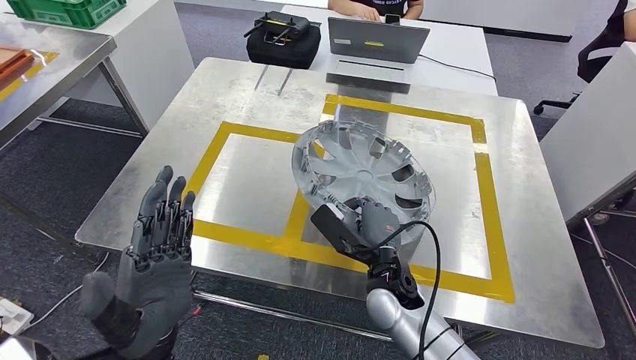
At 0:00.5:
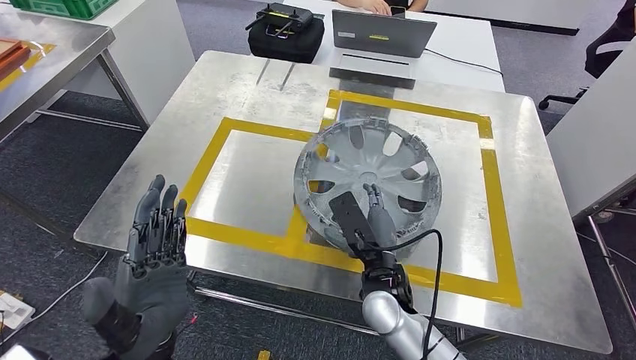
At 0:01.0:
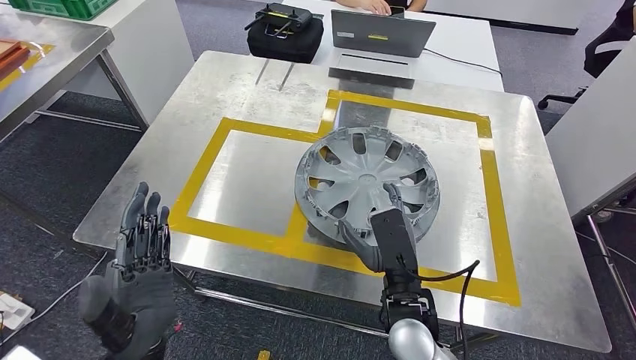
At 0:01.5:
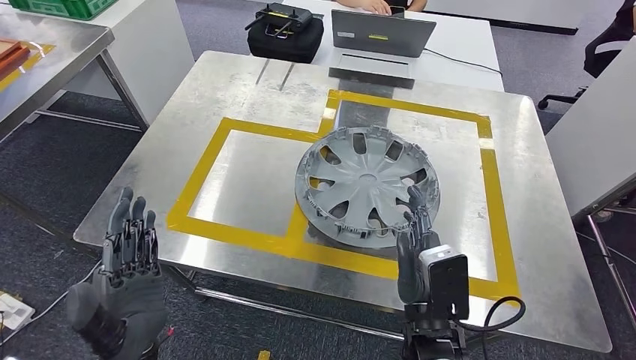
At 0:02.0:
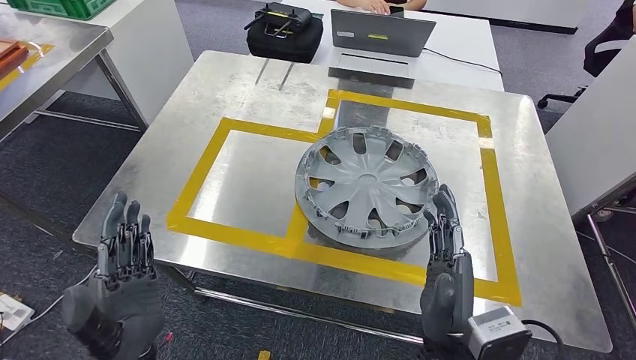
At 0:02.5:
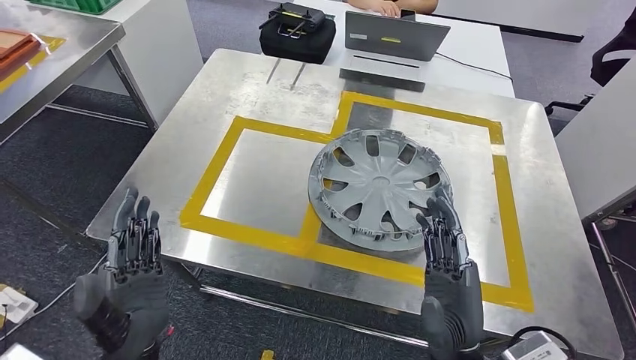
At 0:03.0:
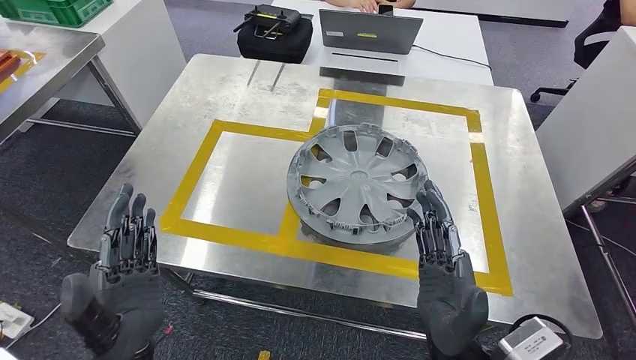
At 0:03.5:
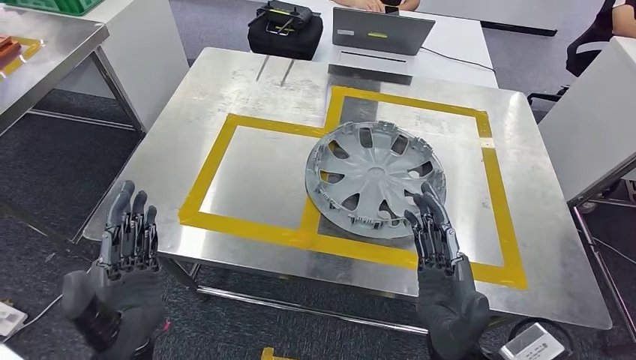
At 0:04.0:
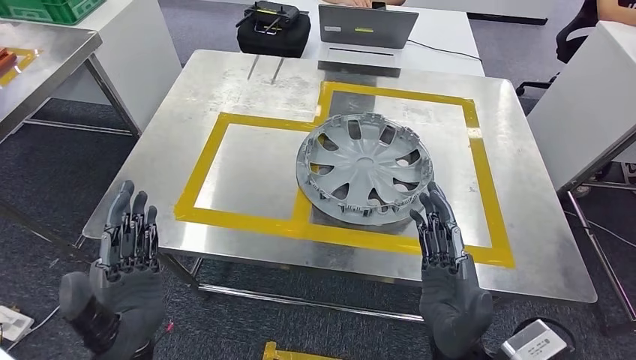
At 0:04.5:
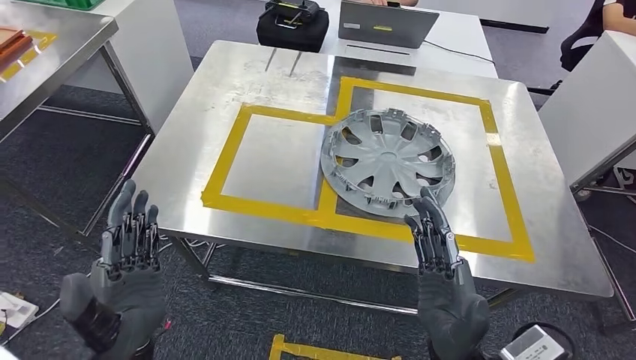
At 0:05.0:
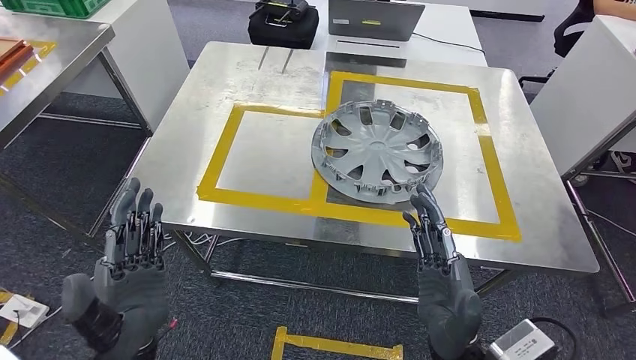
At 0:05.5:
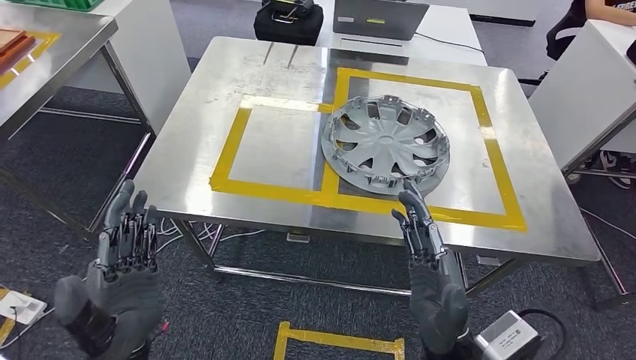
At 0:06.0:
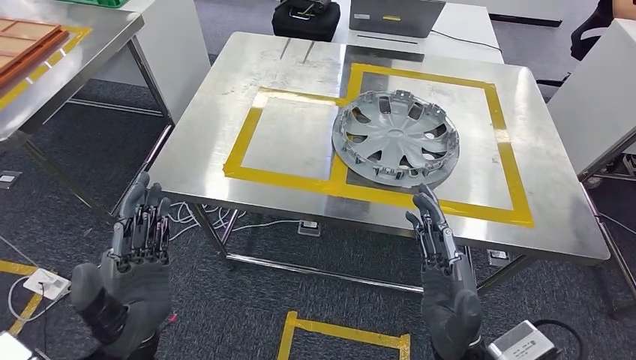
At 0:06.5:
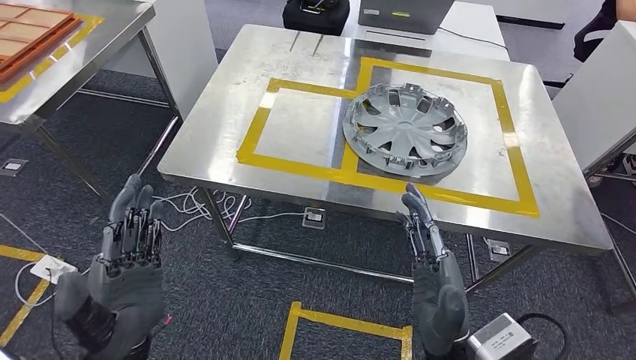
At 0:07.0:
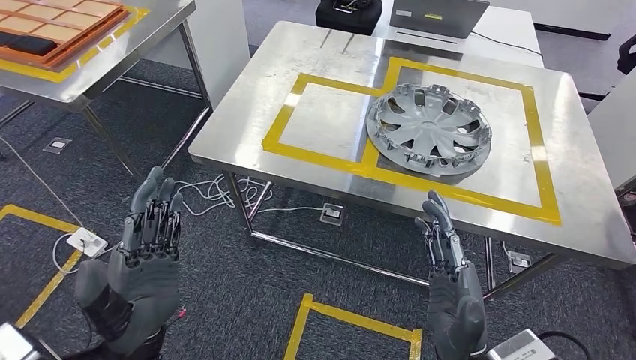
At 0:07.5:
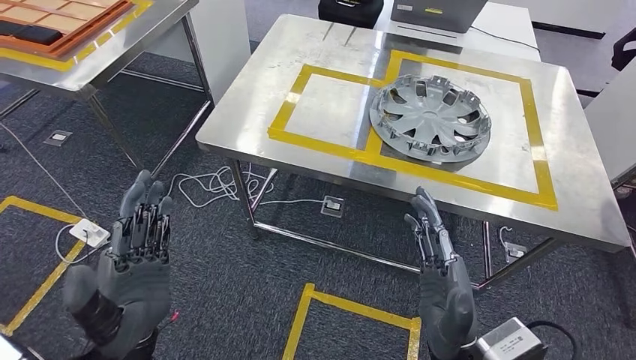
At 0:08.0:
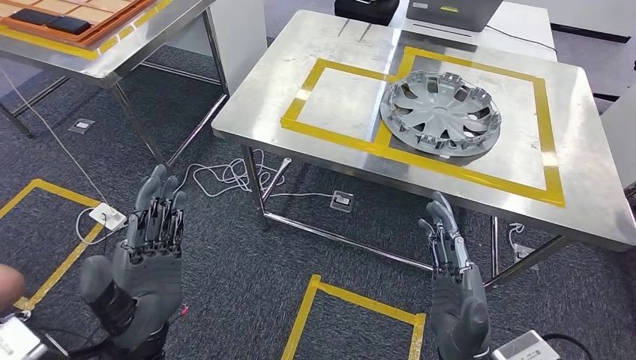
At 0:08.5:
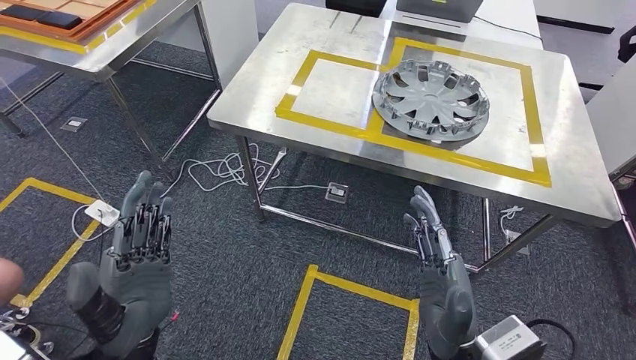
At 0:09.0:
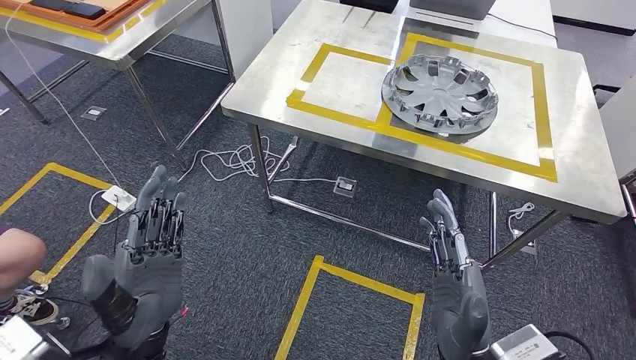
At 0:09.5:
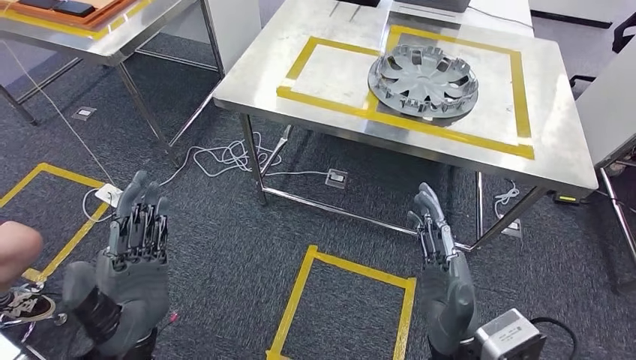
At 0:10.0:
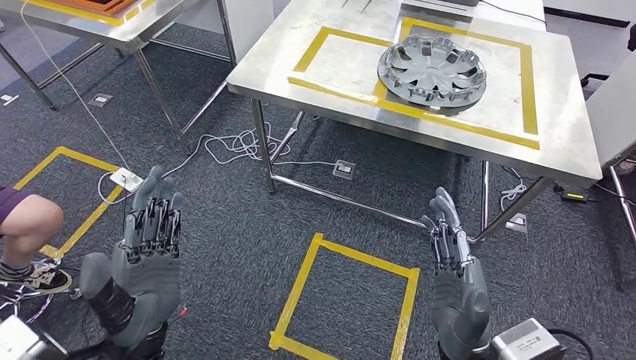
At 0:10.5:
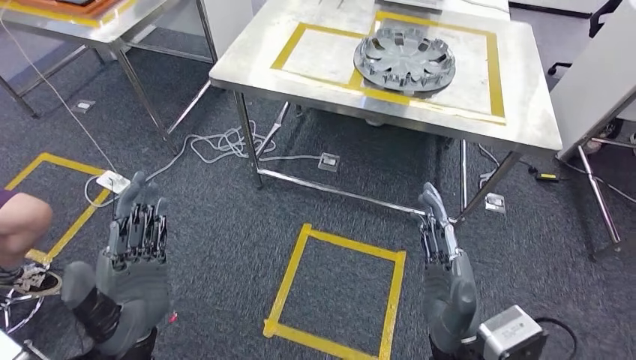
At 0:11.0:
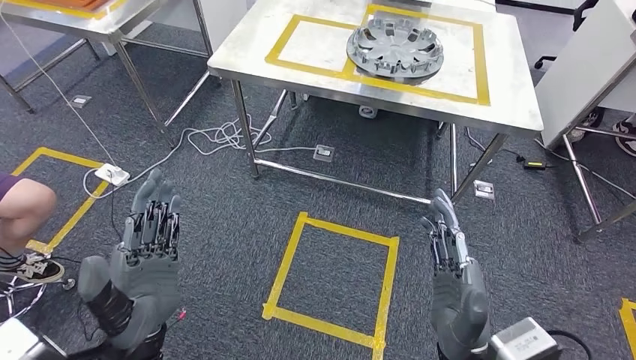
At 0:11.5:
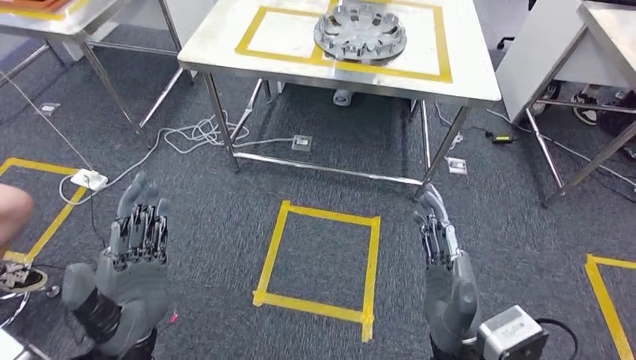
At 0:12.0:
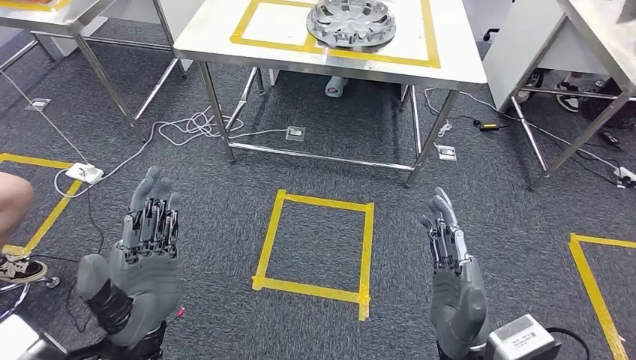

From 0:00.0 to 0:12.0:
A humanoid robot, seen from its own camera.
Step, from 0:00.0 to 0:02.5: Insert the small component into the corresponding slot on the workbench.

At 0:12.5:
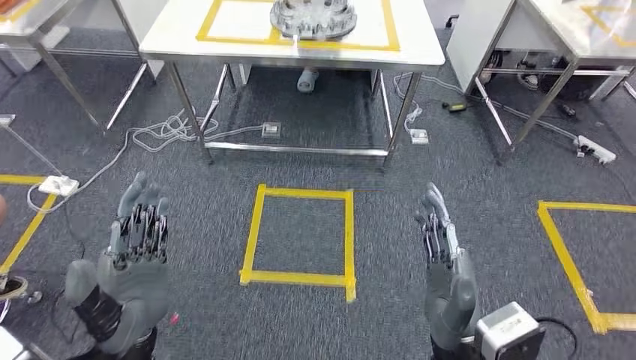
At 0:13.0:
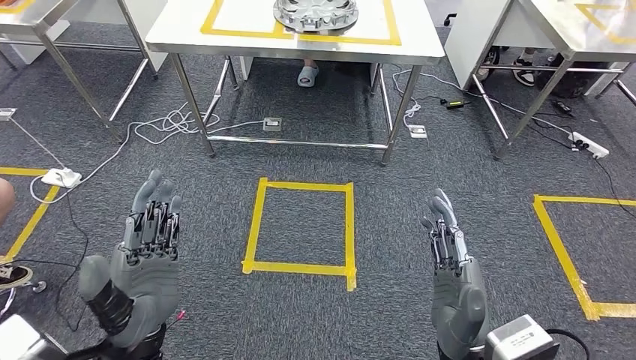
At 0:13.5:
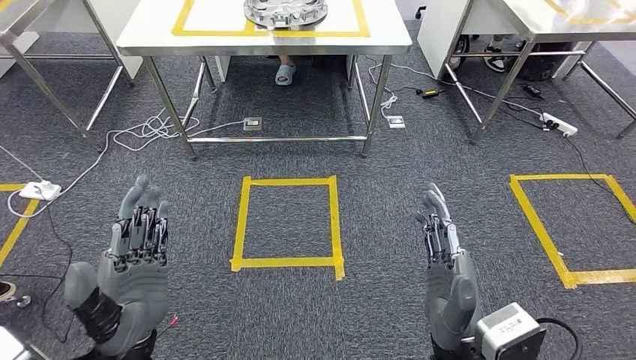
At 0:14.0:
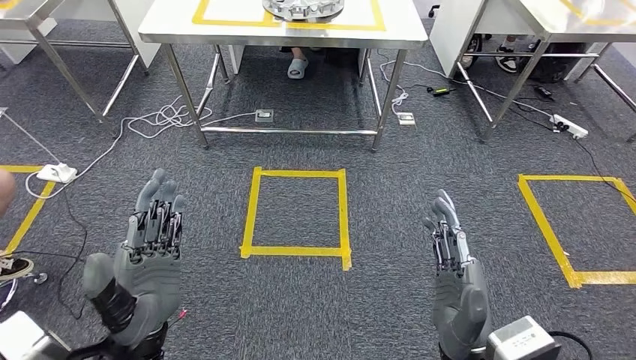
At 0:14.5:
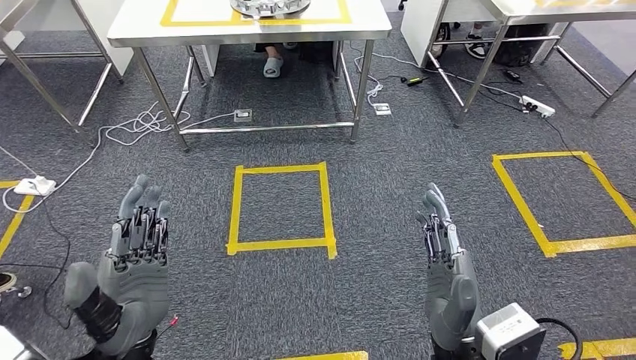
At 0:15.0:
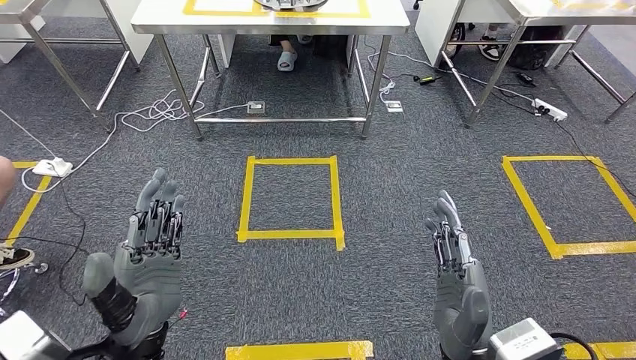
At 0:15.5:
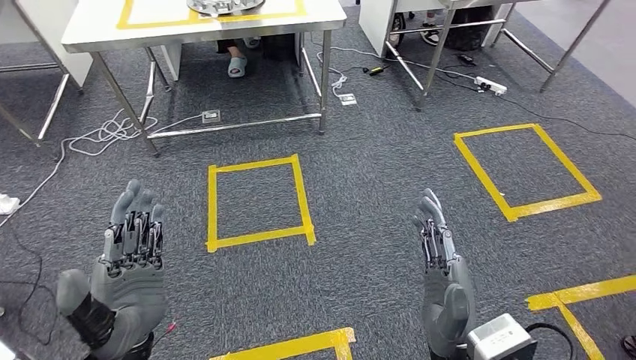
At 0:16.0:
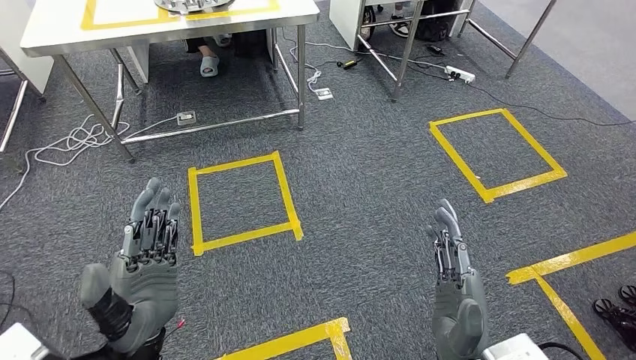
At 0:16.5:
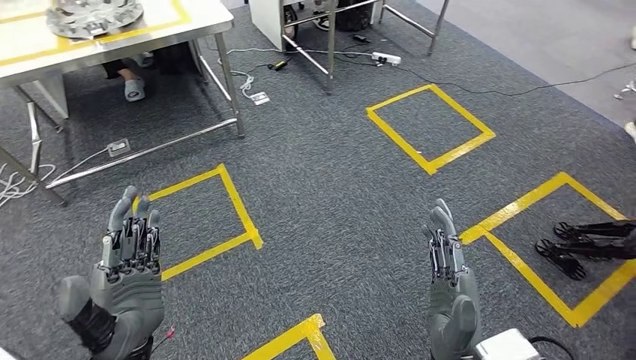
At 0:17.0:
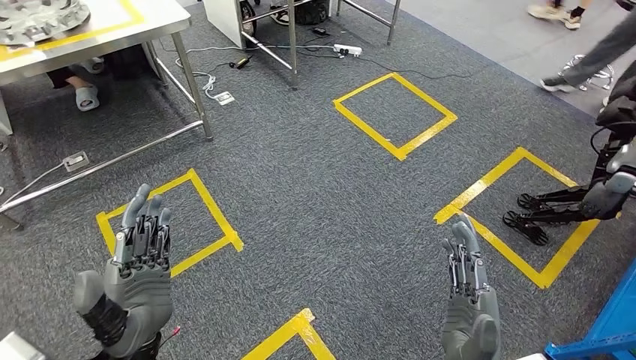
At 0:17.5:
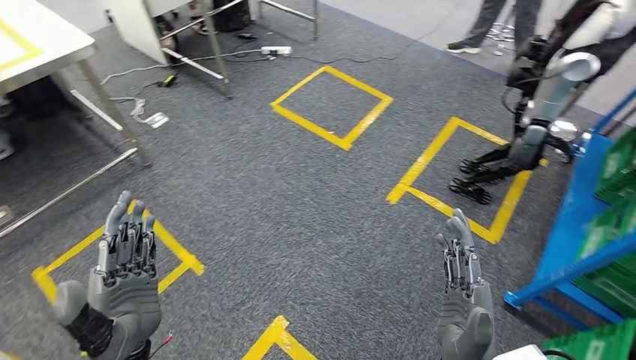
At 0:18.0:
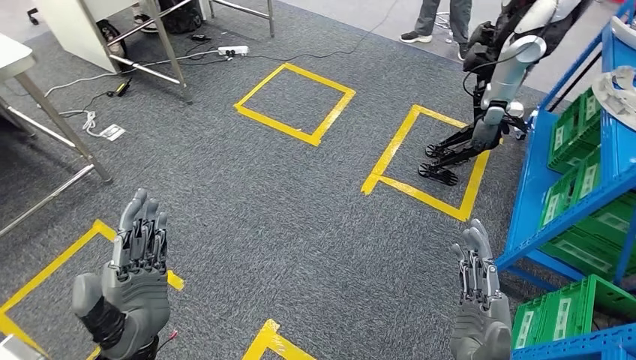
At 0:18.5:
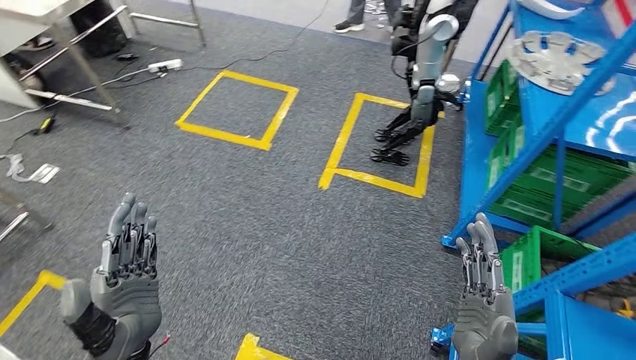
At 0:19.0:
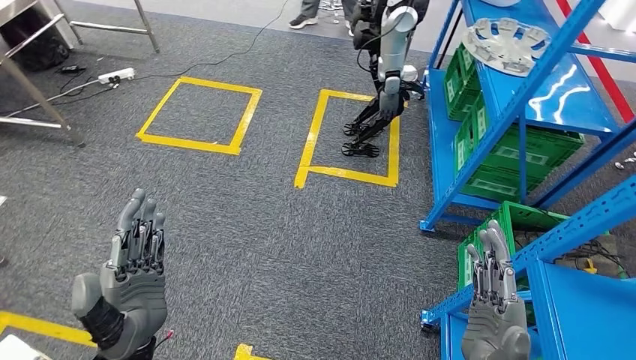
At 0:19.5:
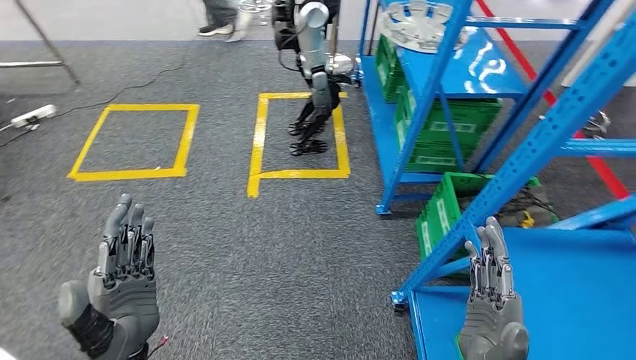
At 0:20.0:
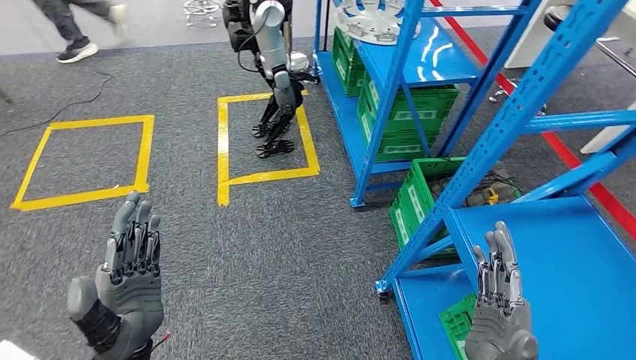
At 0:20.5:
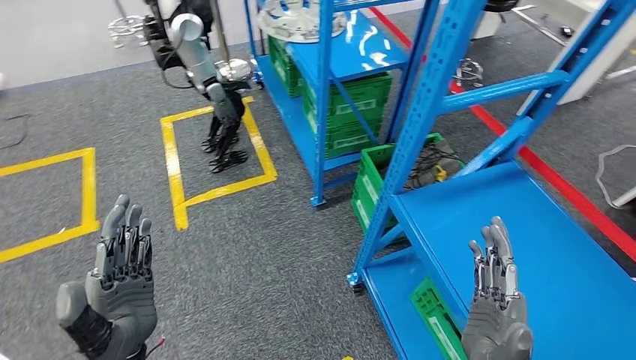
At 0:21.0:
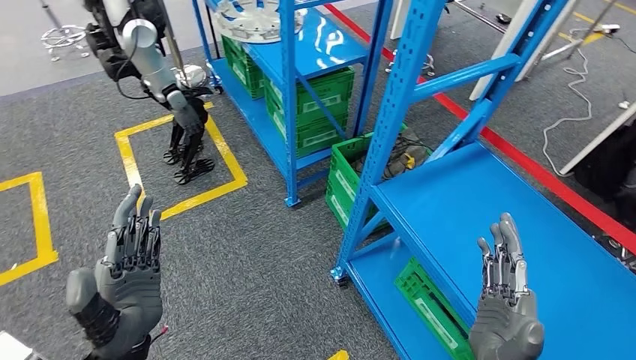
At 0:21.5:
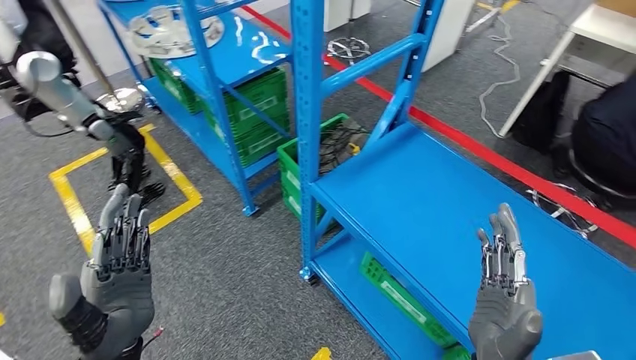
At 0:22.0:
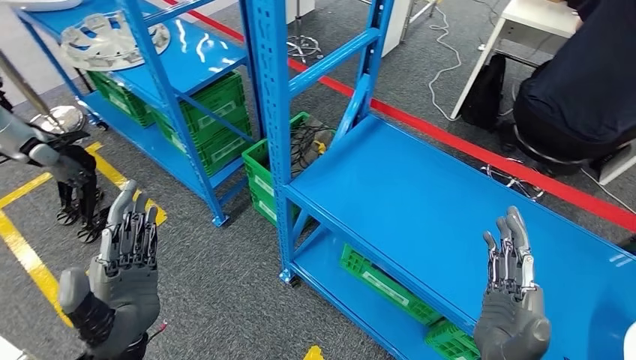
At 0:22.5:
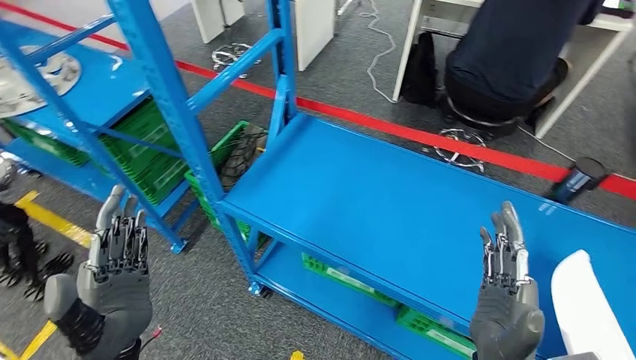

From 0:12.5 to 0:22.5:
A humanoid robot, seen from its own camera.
Step, from 0:12.5 to 0:22.5: Return to the initial position at the workbench.
